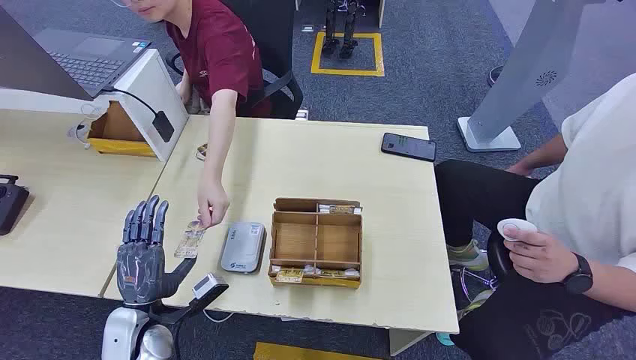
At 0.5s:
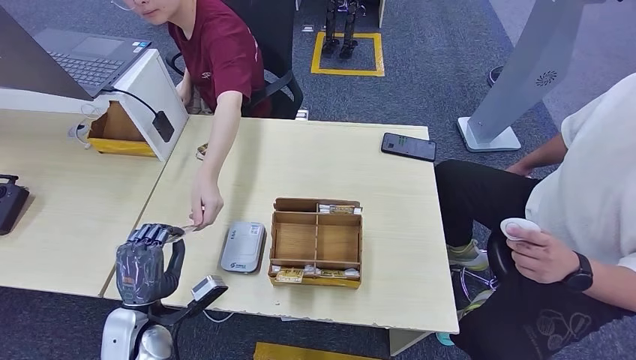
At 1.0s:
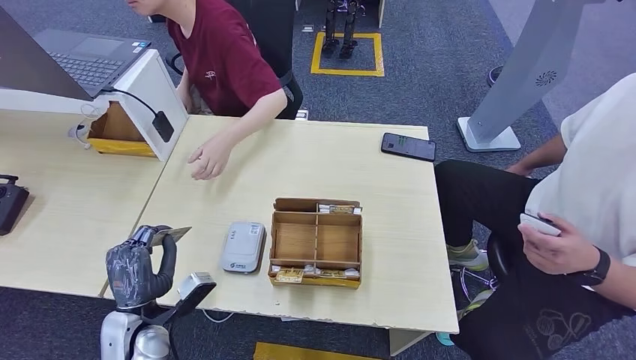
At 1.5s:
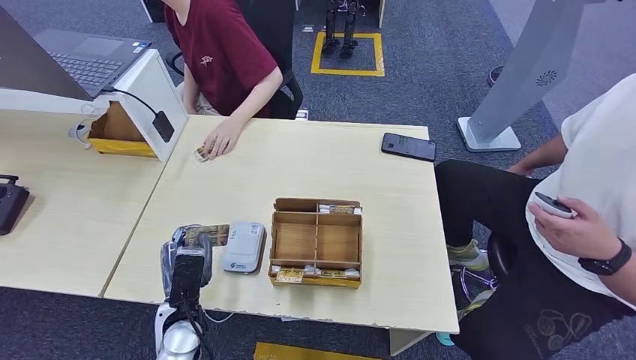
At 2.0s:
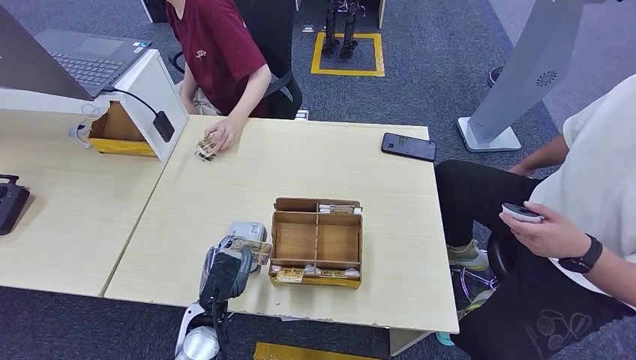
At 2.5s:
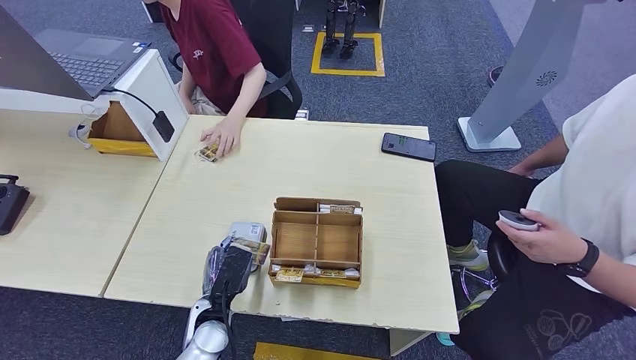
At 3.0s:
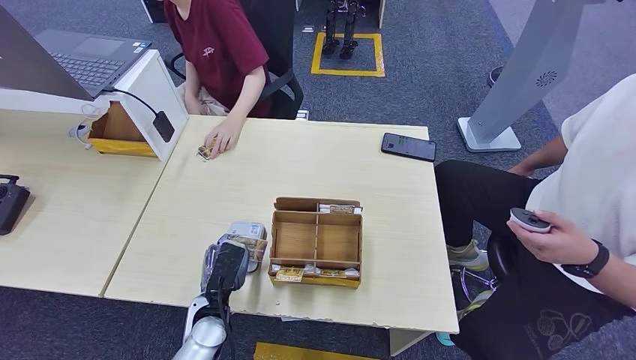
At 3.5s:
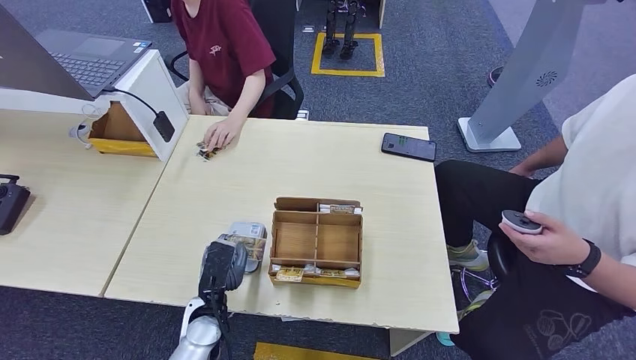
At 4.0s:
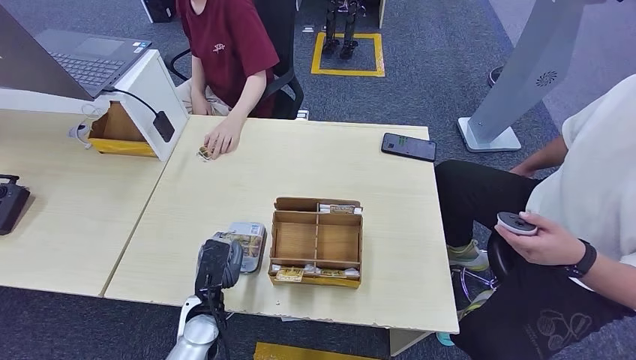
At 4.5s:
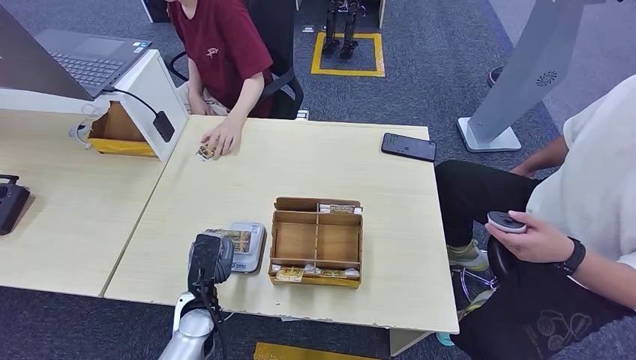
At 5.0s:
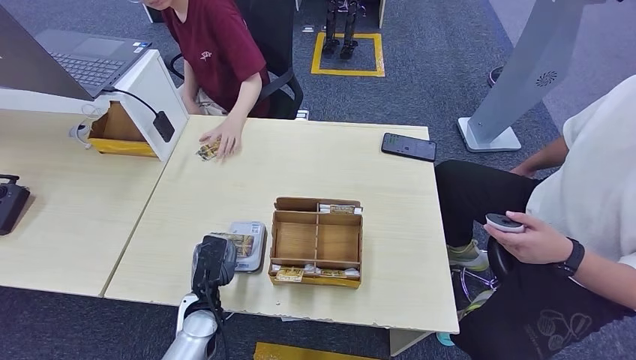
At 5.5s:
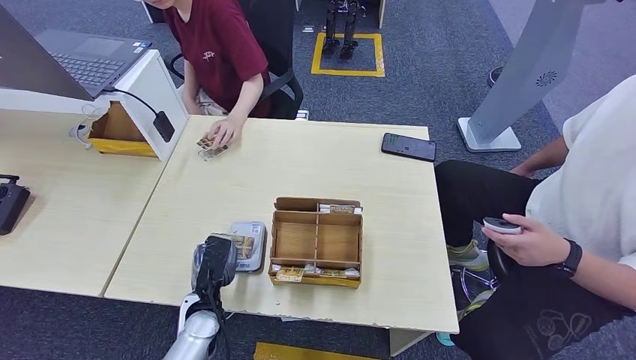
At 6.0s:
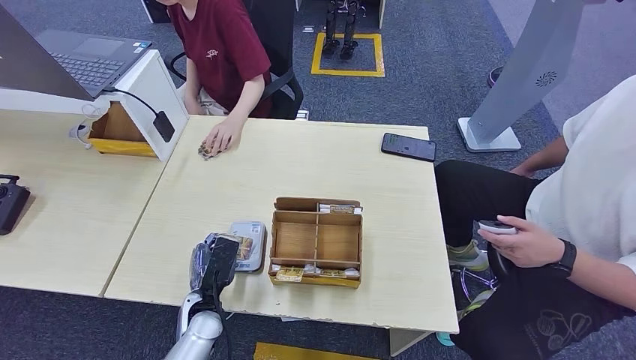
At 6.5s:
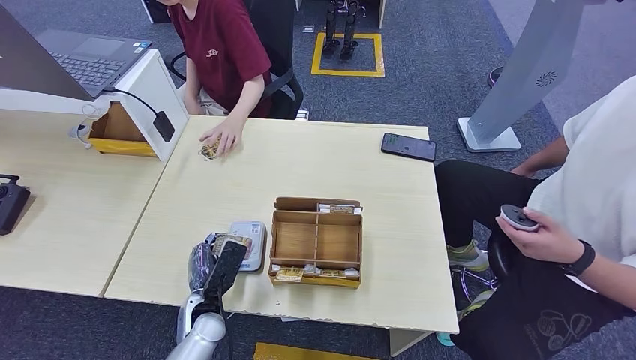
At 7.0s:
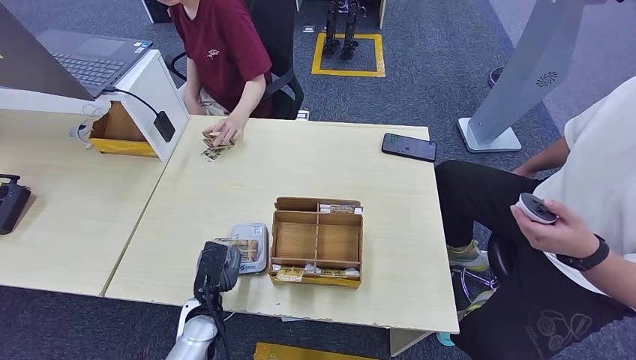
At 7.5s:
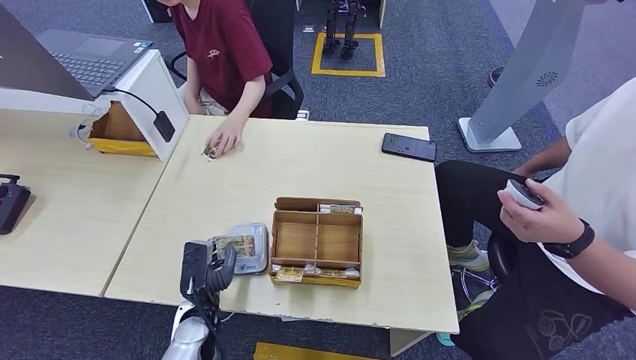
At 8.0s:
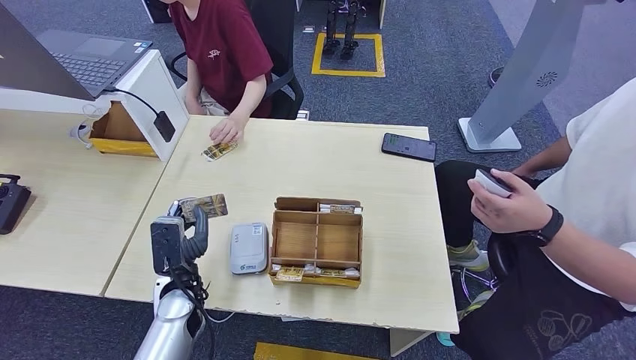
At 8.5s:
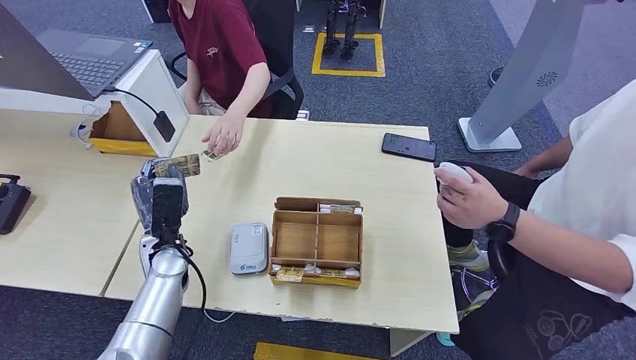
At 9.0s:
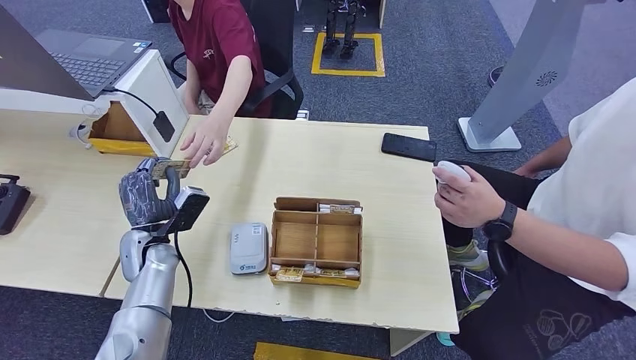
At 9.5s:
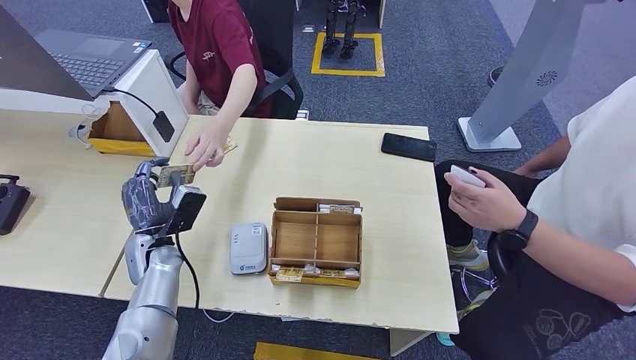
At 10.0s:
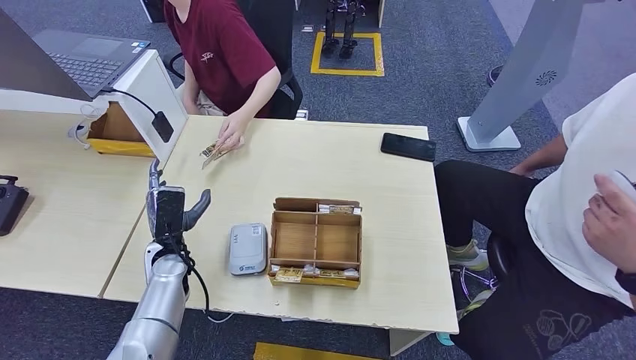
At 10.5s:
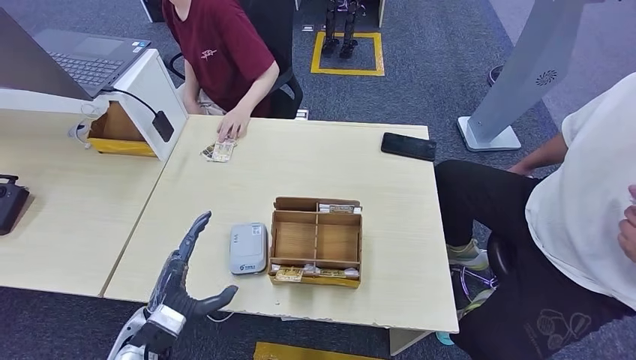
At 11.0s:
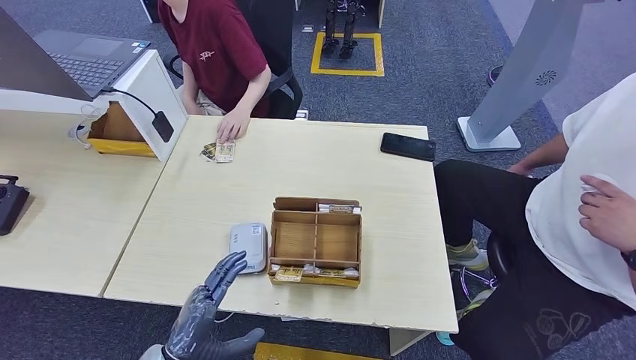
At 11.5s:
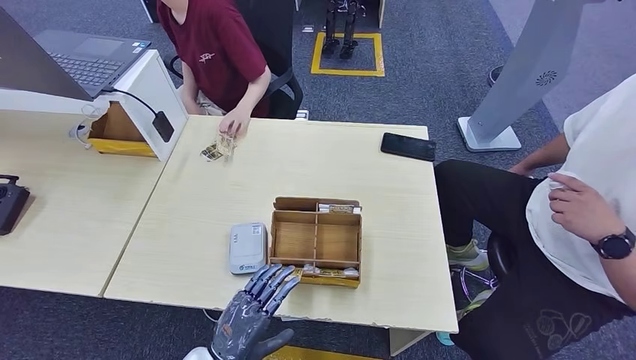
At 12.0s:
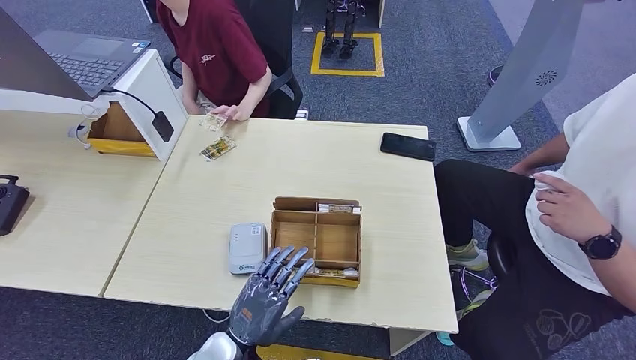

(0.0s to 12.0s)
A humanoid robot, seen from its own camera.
Step, 0.0s - 0.5s: Take the ID card from the person's hand.
Step, 1.0s - 6.0s: Place the ID card on the card reader.
Step, 6.5s - 9.0s: Hand the ID card to the person.
2.0s - 6.0s: The hands move only a little.
6.0s - 8.0s: The left hand moves upward, about 5 cm.
8.0s - 10.0s: The left hand heads forward and to the left, covering some 10 cm.
10.0s - 12.0s: The left hand moves backward and to the right, some 25 cm.

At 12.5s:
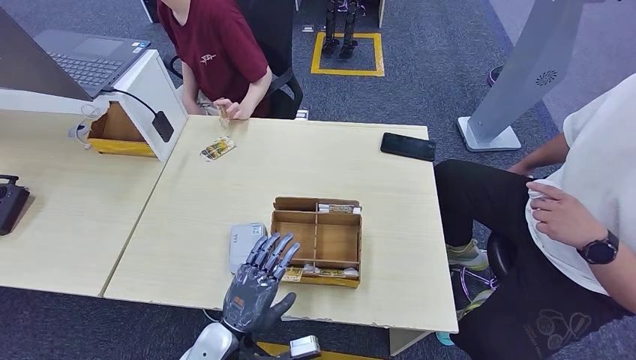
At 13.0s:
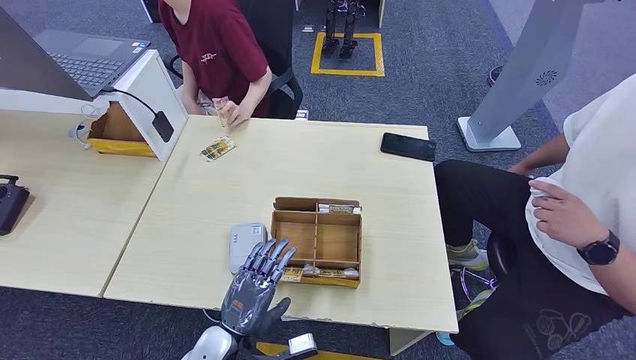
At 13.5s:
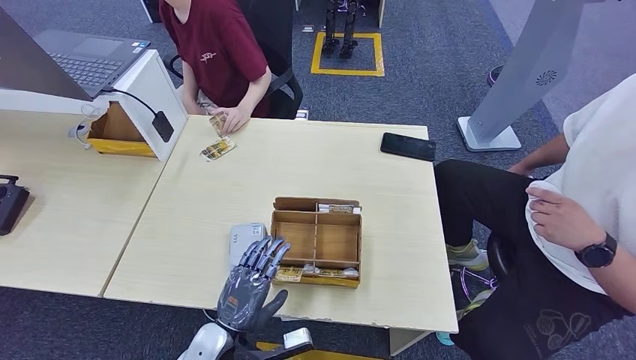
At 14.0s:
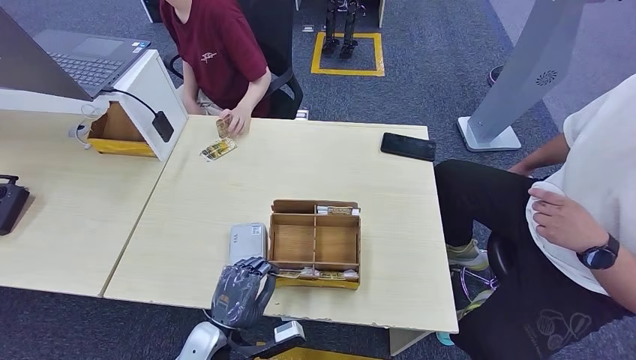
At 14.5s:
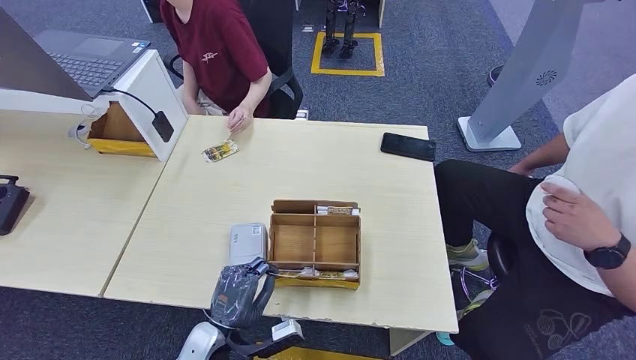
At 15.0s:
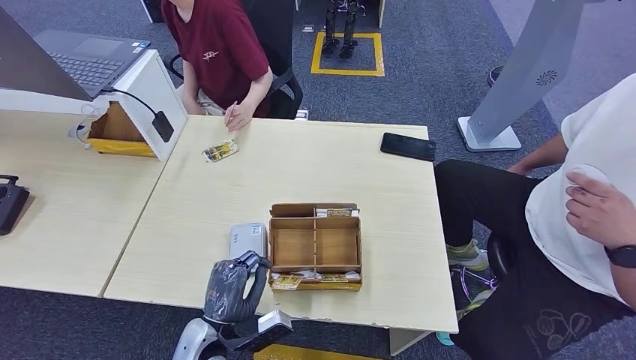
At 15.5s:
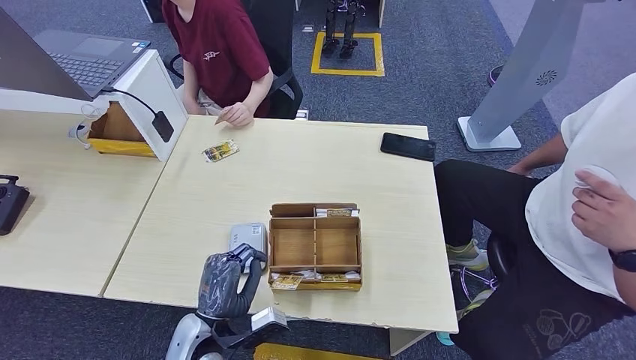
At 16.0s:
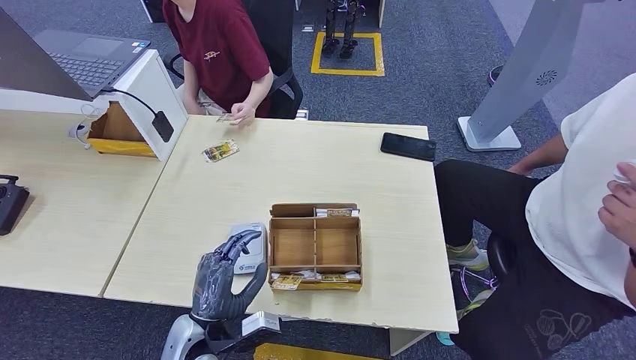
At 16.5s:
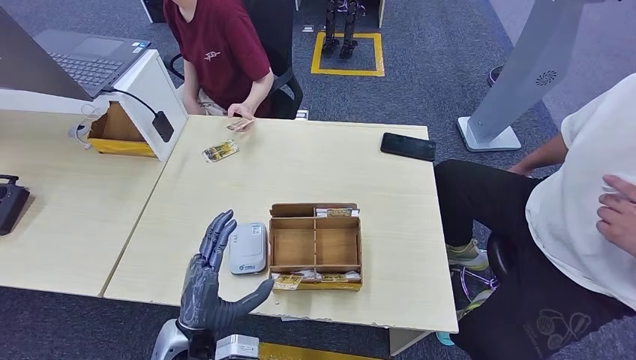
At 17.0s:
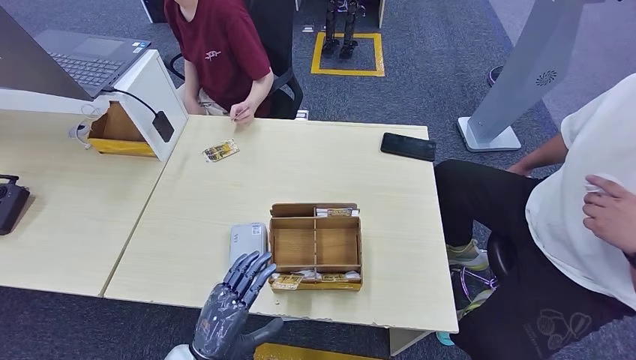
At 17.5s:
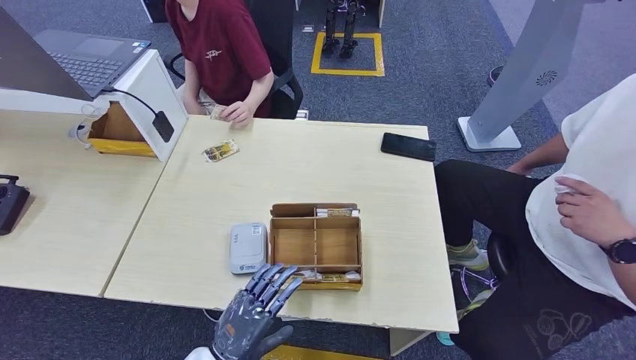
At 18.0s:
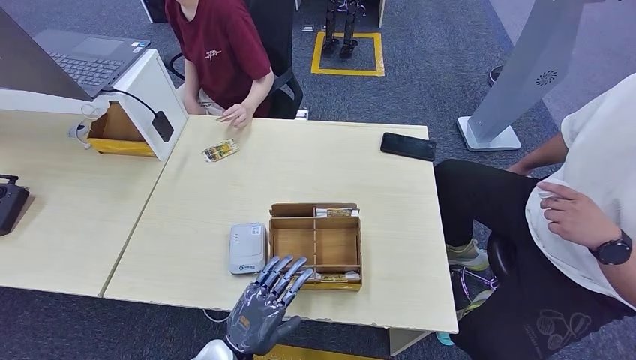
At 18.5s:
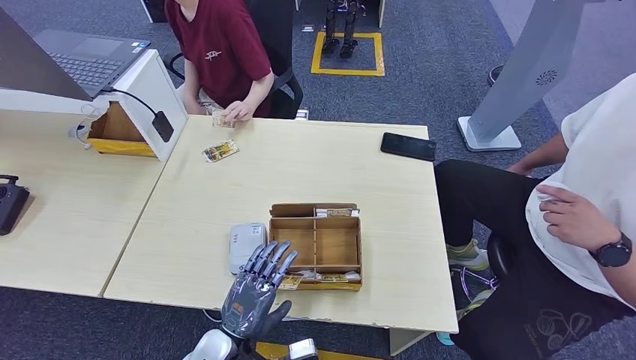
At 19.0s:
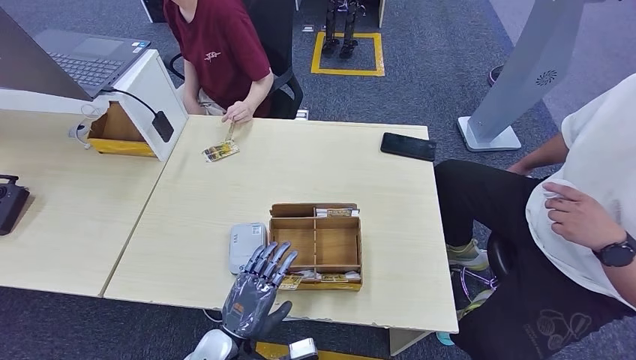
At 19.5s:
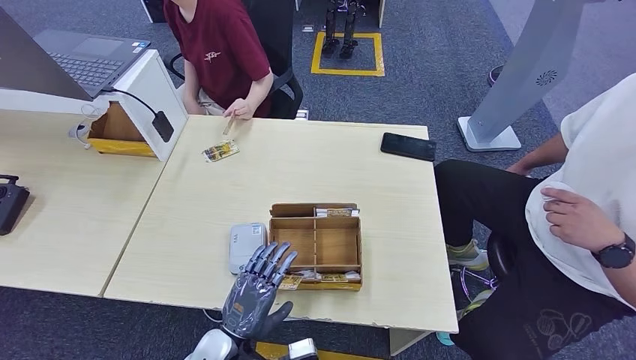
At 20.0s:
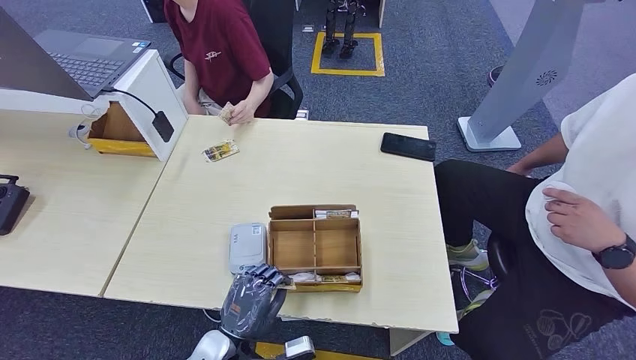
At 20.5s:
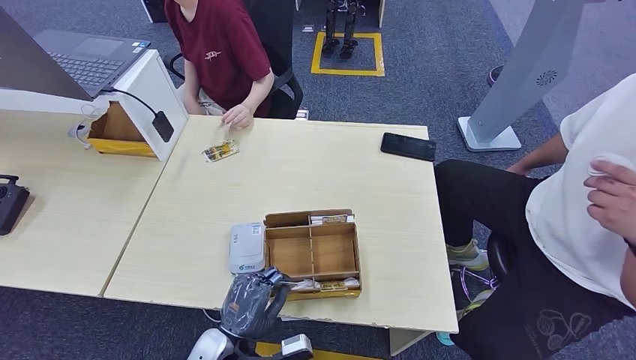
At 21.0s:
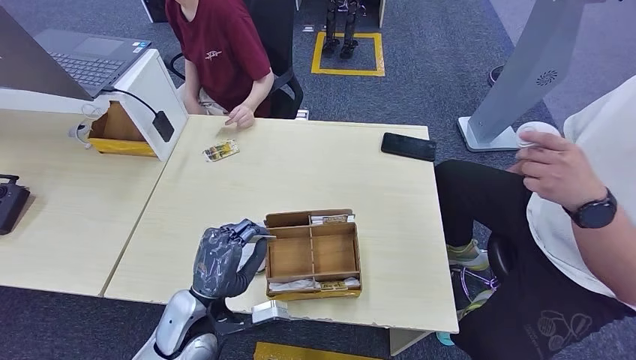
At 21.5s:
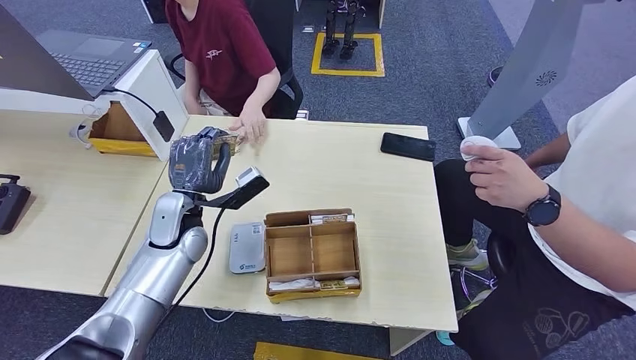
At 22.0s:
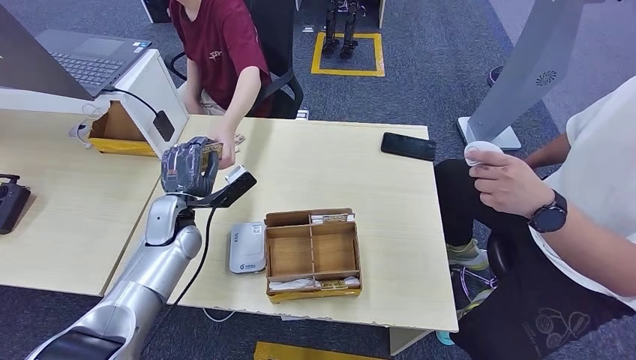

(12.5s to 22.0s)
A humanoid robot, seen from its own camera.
Step, 19.0s - 21.5s: Pick up the room key from the key card box.
12.5s - 14.5s: The hands make only small movements.
14.5s - 16.5s: The left hand goes about 5 cm upward.
16.5s - 18.0s: The left hand heads downward, covering roughly 5 cm.
18.0s - 20.0s: The hands stay close to where they were, moving slightly.
20.0s - 22.0s: The left hand moves forward, to the left and upward, roughly 25 cm.
